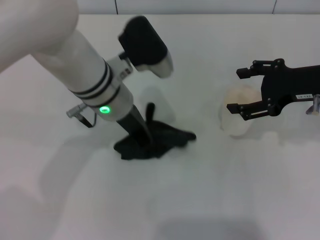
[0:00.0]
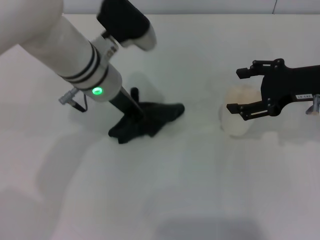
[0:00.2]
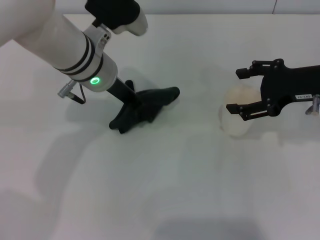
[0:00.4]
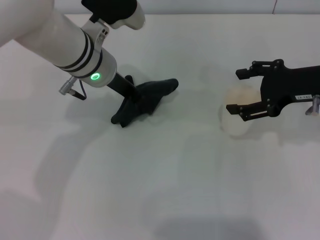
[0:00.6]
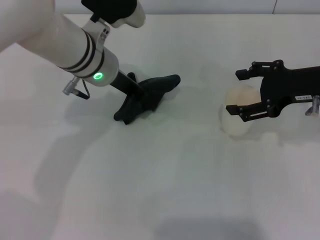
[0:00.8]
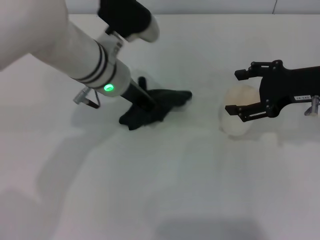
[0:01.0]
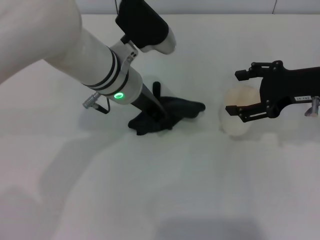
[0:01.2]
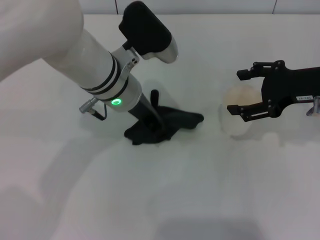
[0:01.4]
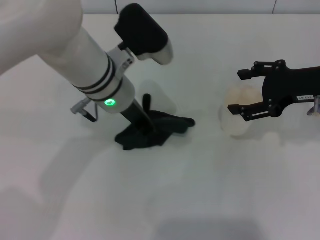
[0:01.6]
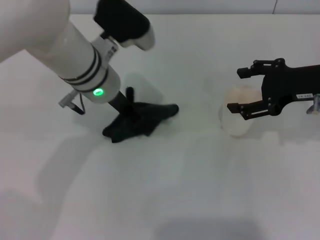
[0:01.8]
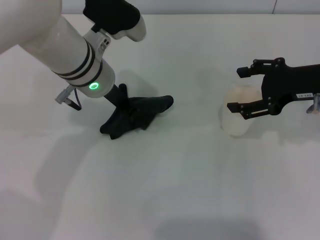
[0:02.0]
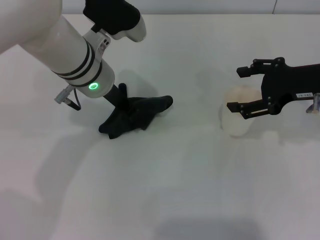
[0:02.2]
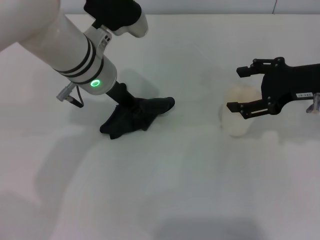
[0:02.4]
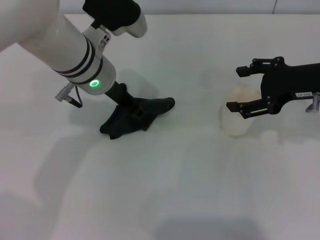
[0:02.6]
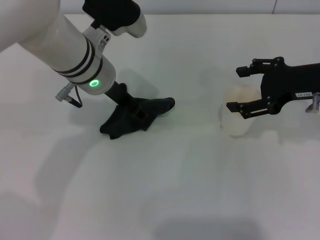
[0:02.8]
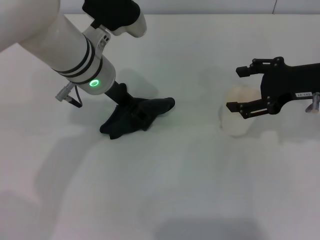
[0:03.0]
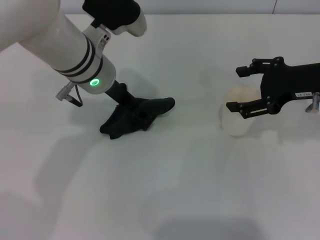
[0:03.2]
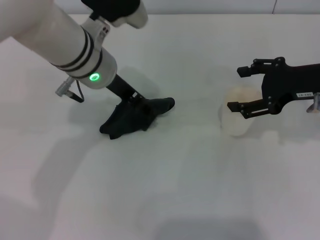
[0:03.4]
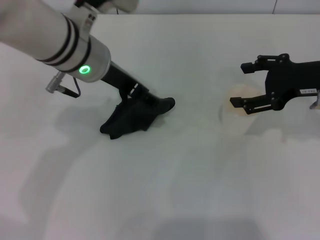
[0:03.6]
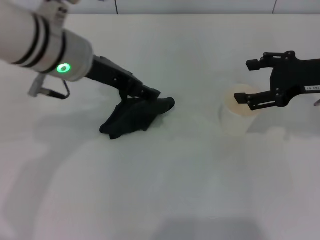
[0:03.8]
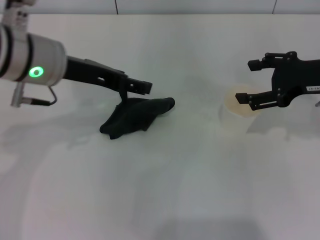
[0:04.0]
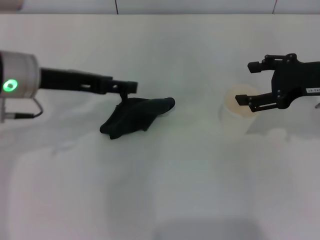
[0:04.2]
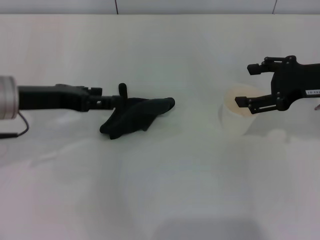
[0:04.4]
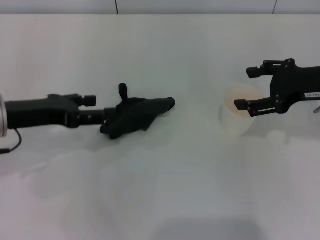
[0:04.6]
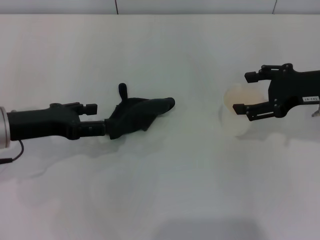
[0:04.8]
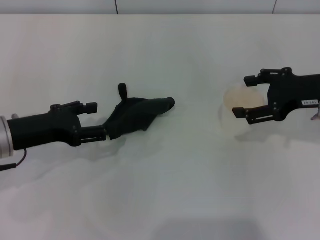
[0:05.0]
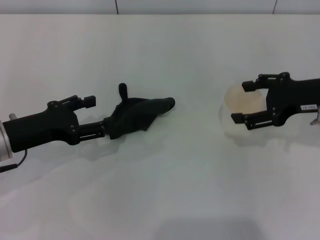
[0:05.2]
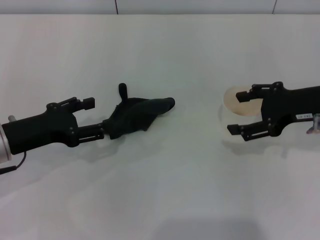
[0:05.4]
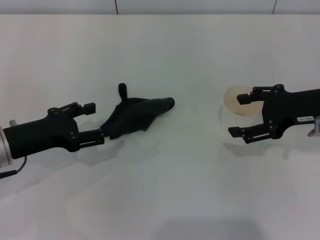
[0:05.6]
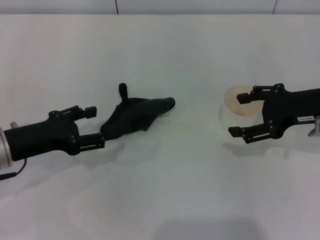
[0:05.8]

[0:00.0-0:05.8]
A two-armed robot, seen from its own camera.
Step, 0:00.0 to 0:03.6: Place the rag on the table with the left gripper.
0:01.4 to 0:02.8: The left gripper opens.
0:02.8 to 0:04.4: The left gripper travels to the left by roughly 15 cm, and opens up.
0:04.4 to 0:05.8: The left gripper is displaced downward and backward by about 10 cm.

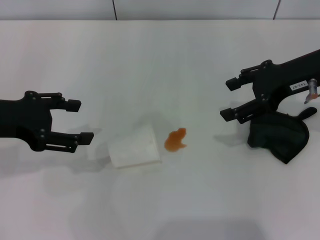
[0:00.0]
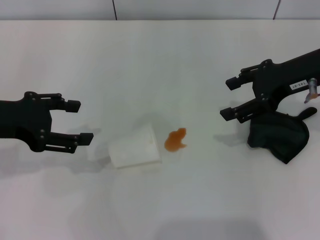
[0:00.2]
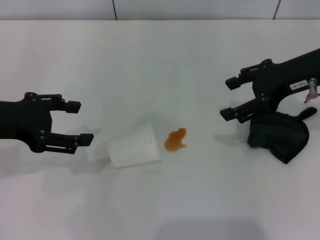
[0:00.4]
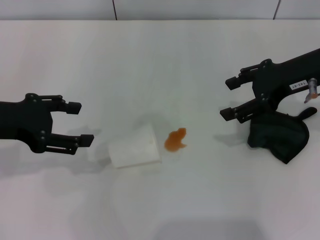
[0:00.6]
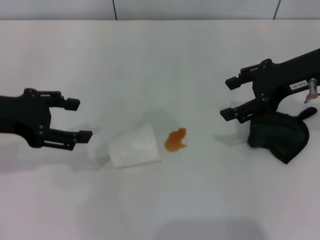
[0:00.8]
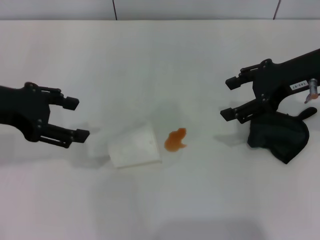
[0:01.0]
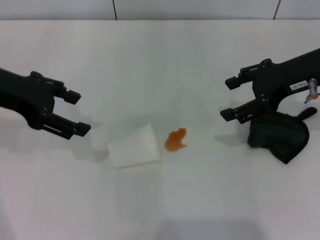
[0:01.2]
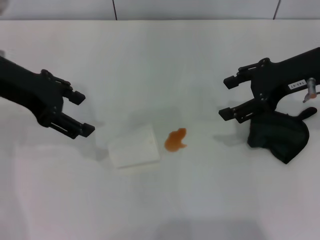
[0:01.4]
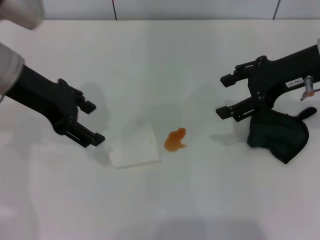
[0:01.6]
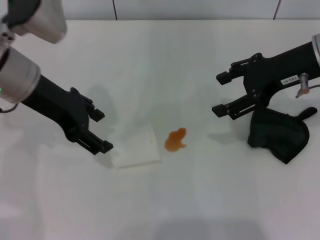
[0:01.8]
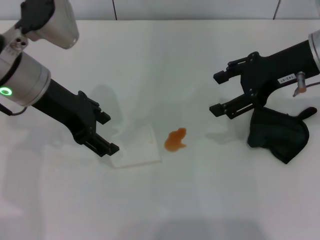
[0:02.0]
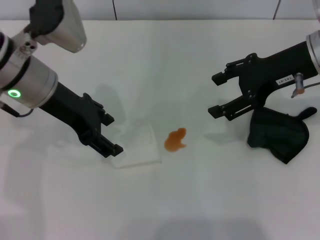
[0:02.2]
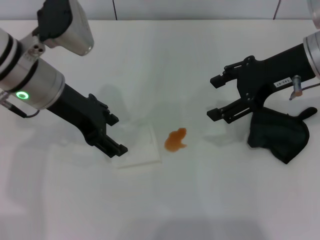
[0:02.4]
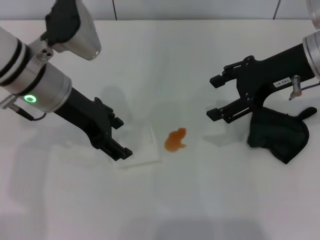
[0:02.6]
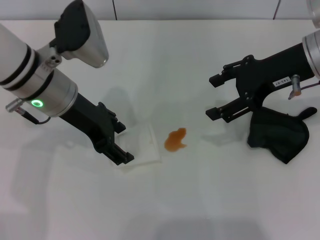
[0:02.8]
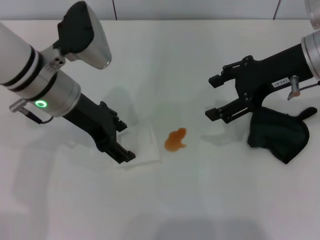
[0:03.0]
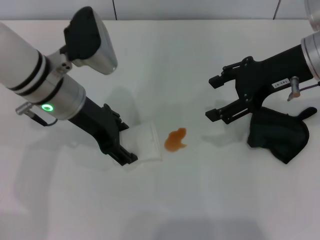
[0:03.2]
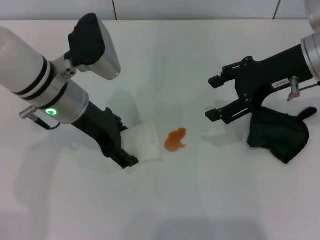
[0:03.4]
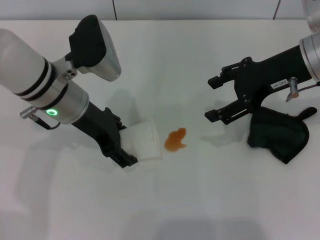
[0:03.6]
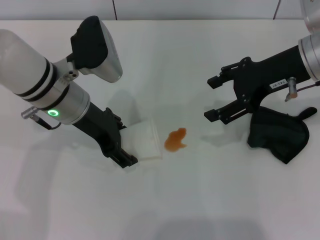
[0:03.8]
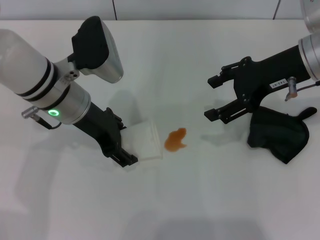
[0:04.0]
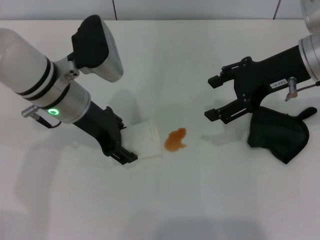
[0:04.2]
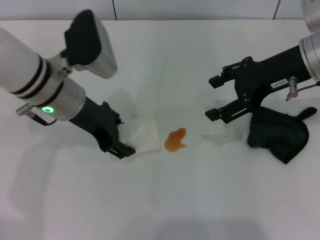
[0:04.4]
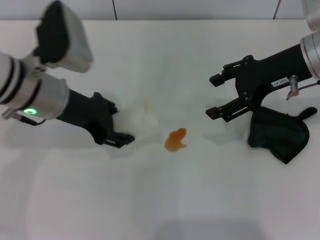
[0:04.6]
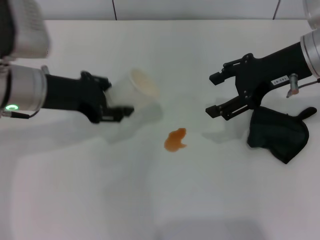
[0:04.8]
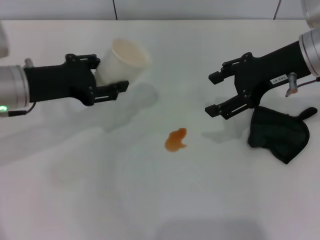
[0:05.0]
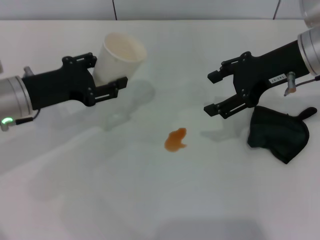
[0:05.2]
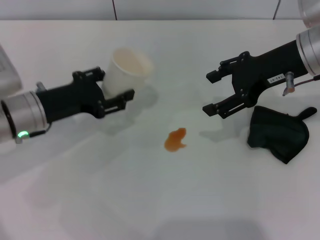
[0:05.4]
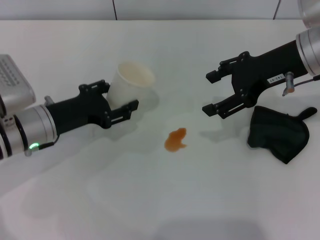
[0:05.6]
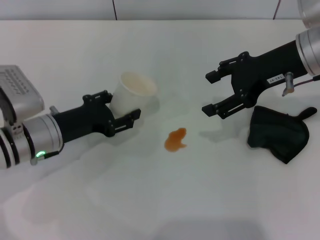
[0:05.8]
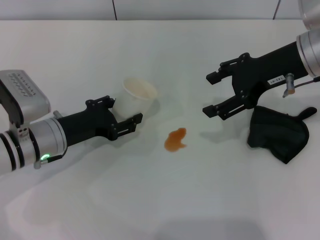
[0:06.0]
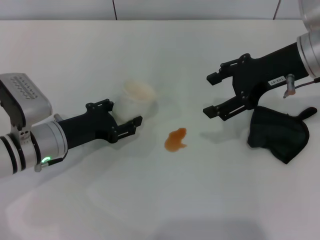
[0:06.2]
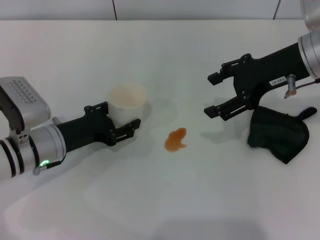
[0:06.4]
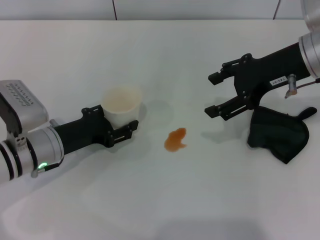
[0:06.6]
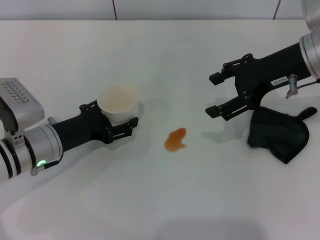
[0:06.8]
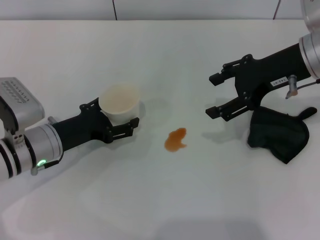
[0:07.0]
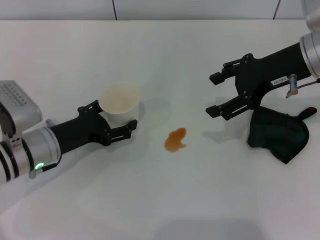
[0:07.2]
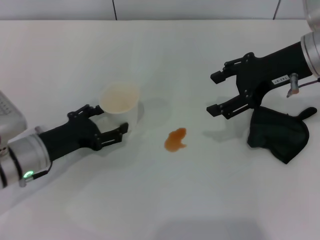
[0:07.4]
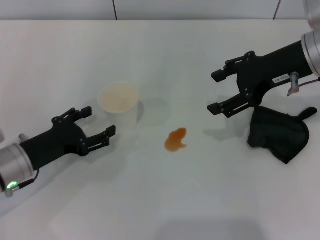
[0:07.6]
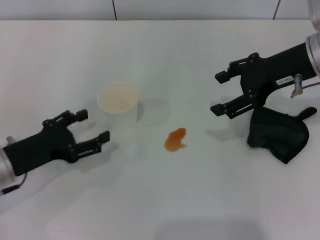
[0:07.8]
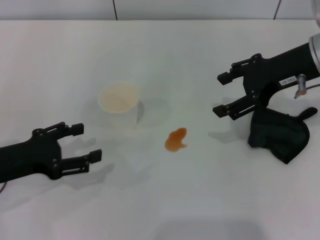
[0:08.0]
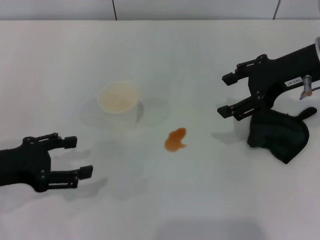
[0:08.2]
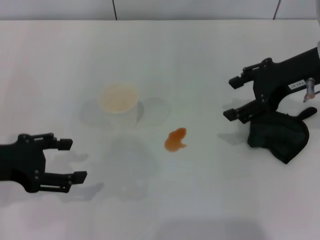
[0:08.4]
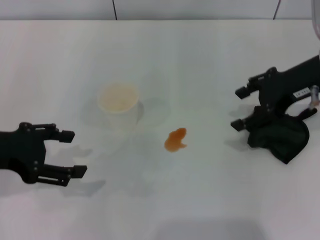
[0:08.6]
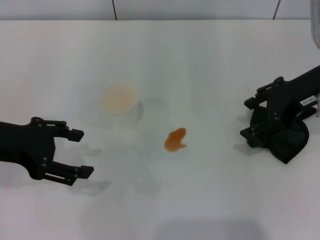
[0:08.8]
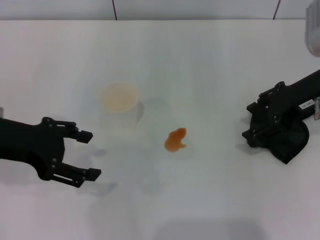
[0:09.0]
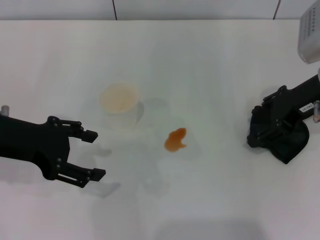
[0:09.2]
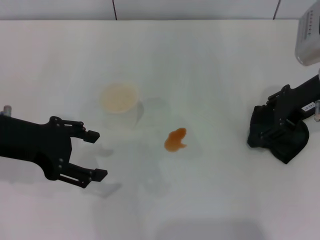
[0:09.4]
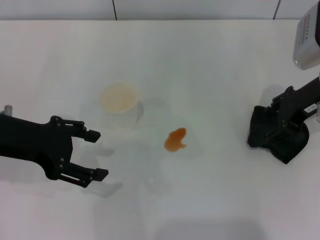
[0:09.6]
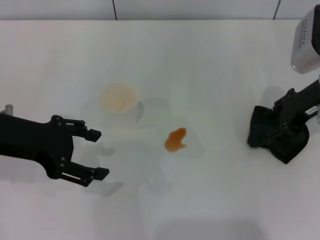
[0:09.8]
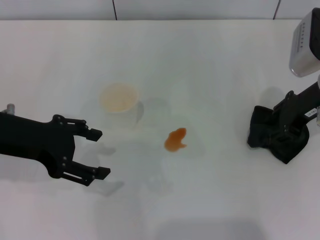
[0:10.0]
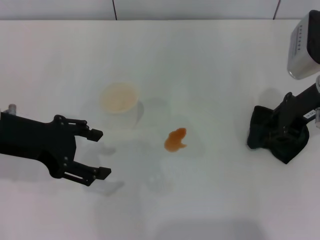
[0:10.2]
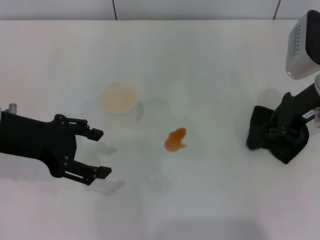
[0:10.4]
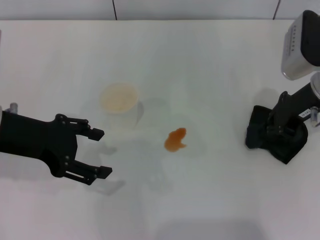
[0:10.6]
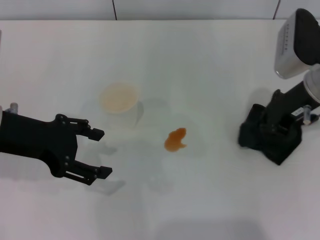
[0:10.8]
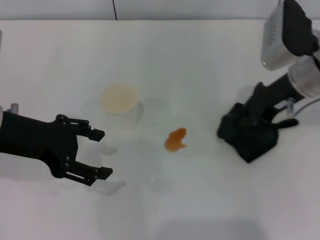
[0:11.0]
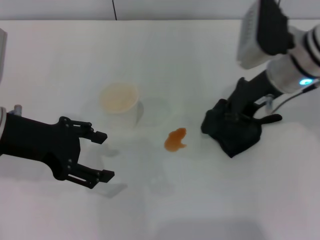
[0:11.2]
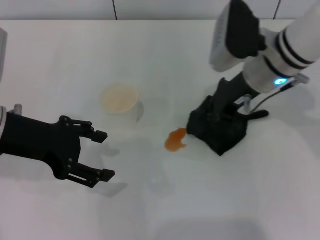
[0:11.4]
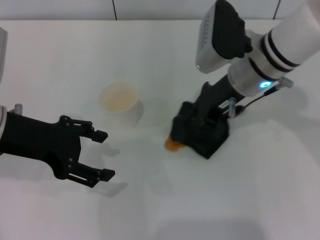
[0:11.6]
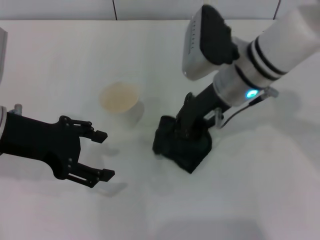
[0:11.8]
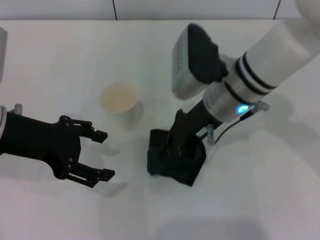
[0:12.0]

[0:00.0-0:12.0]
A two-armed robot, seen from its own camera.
Step, 0:00.0 to 0:04.0: Grasp the paper cup with the left gripper.
Step, 0:04.2 to 0:07.6: Stand the paper cup upright with the left gripper.
Step, 0:07.8 to 0:10.8: Grasp the rag with the right gripper.
0:00.0 to 0:01.6: The left gripper is displaced to the right and forward by about 10 cm.
0:01.6 to 0:03.0: The left gripper shifts about 10 cm downward and to the right.
0:03.0 to 0:04.4: The left gripper closes.
0:04.4 to 0:06.0: The left gripper travels downward and to the left by about 10 cm.
0:06.0 to 0:07.6: The left gripper ends up about 5 cm from where it was, and opens up.
0:07.6 to 0:09.0: The left gripper shifts approximately 15 cm upward.
0:09.0 to 0:10.4: The right gripper closes up.
0:10.4 to 0:12.0: The right gripper shifts roughly 15 cm to the left.

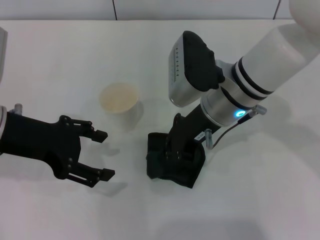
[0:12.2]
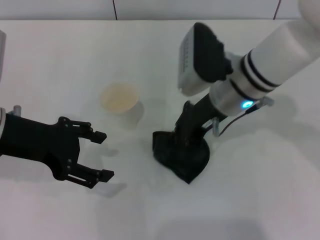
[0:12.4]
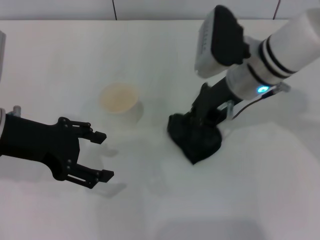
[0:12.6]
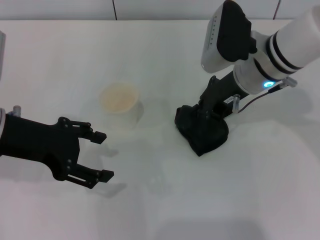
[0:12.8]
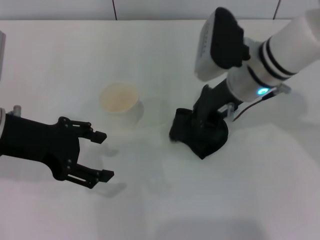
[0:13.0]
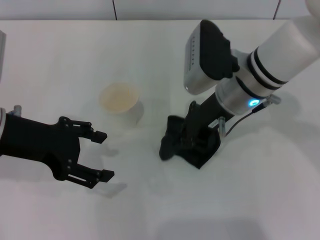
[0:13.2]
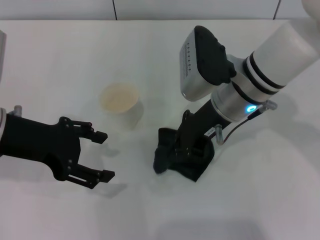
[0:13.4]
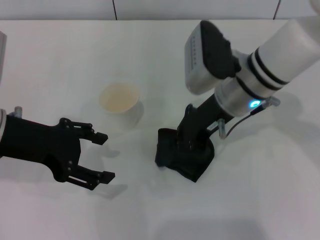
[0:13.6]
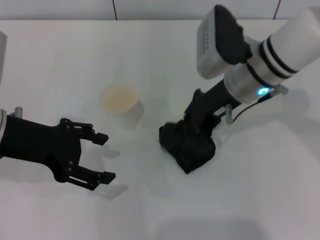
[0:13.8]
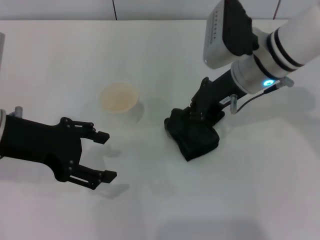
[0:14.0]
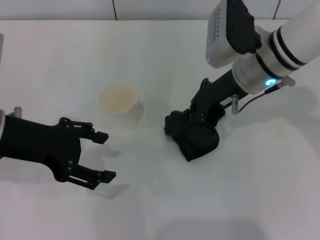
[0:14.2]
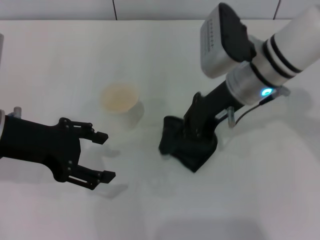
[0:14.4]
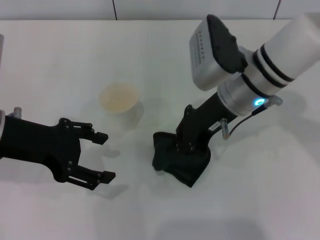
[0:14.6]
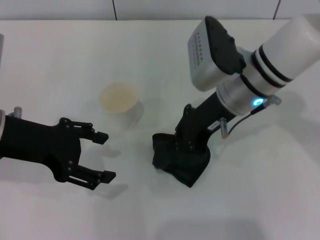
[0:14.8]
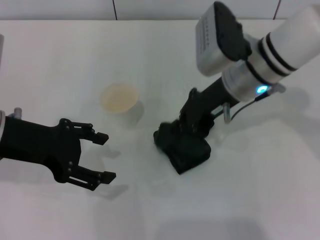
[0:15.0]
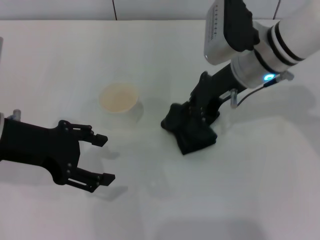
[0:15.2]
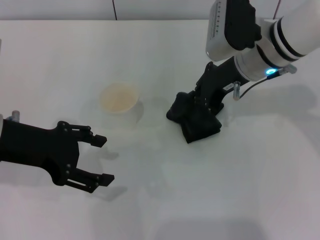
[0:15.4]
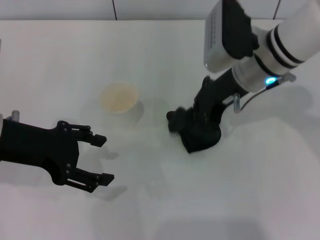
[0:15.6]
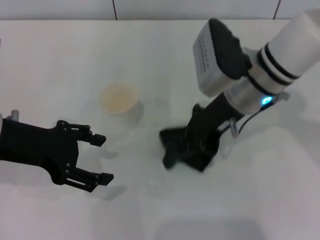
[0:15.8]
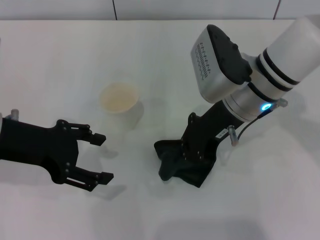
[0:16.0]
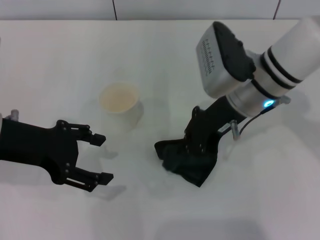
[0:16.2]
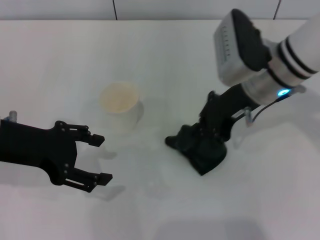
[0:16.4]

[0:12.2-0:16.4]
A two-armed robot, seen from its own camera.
0:13.6 to 0:16.4: There are only small adjustments of the grippers.
